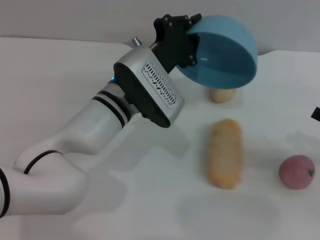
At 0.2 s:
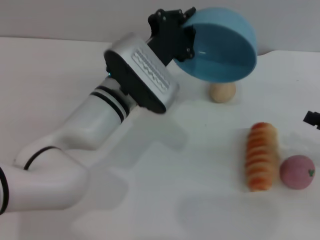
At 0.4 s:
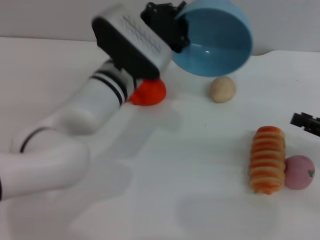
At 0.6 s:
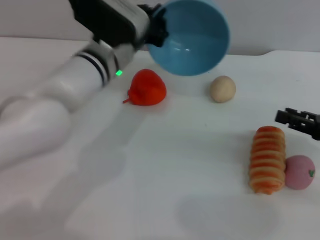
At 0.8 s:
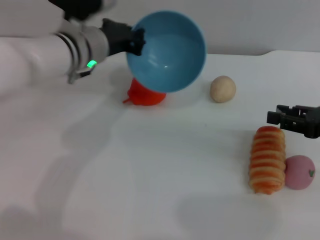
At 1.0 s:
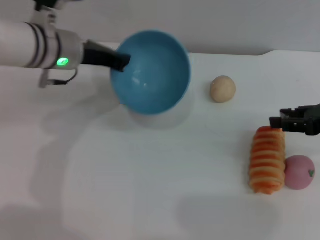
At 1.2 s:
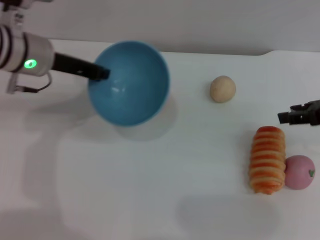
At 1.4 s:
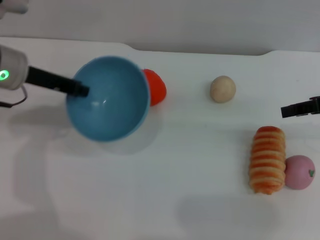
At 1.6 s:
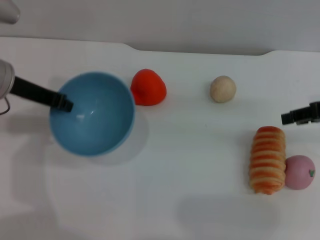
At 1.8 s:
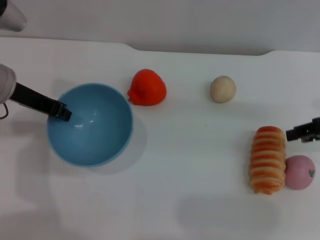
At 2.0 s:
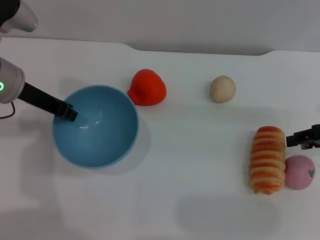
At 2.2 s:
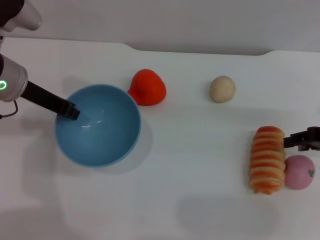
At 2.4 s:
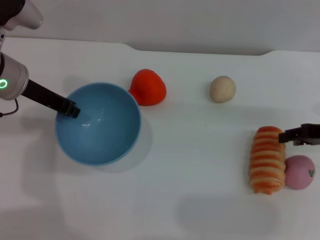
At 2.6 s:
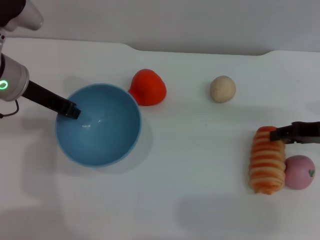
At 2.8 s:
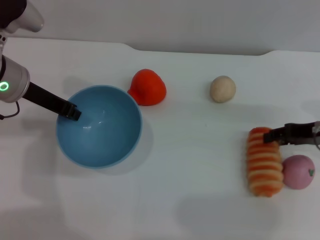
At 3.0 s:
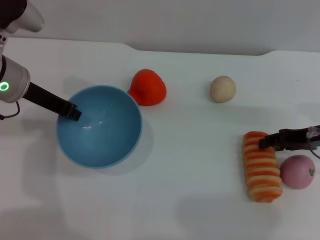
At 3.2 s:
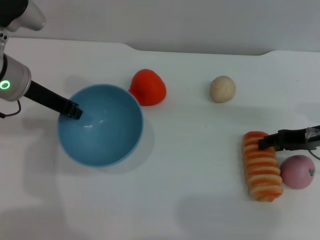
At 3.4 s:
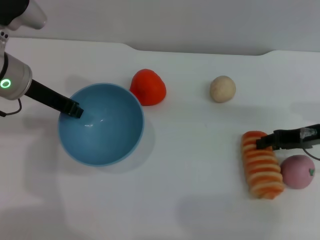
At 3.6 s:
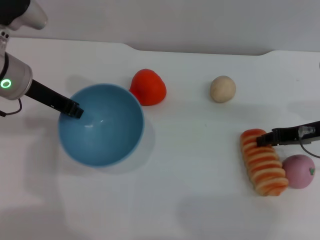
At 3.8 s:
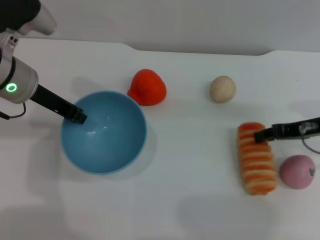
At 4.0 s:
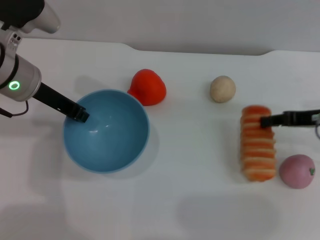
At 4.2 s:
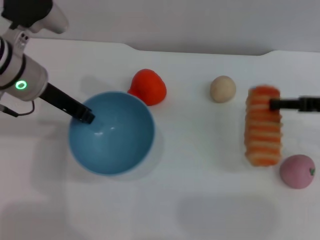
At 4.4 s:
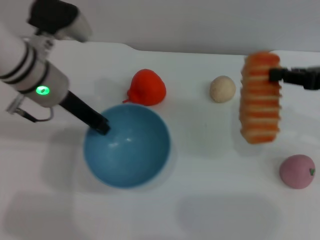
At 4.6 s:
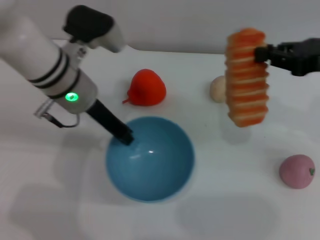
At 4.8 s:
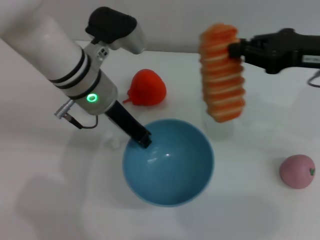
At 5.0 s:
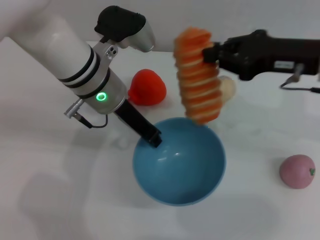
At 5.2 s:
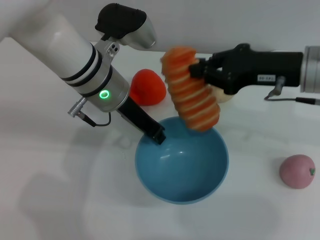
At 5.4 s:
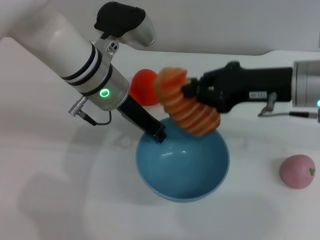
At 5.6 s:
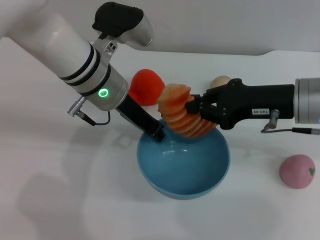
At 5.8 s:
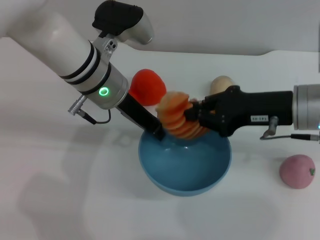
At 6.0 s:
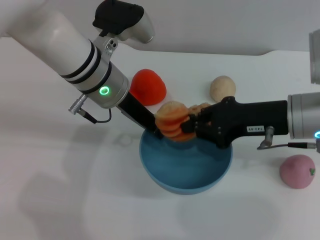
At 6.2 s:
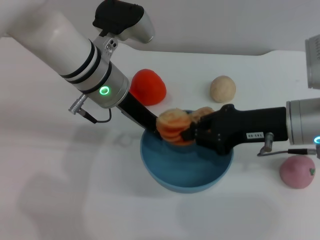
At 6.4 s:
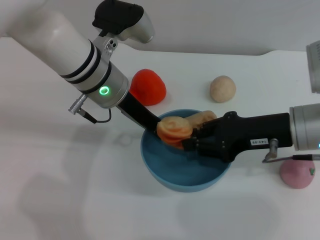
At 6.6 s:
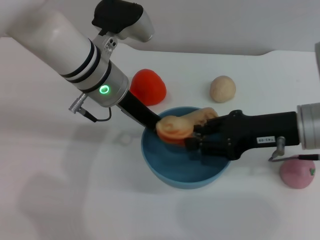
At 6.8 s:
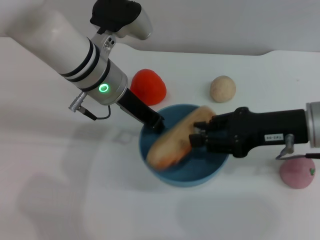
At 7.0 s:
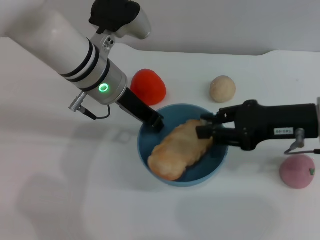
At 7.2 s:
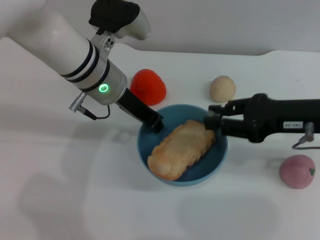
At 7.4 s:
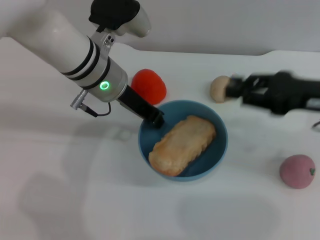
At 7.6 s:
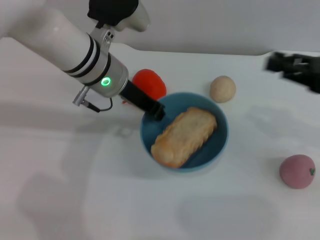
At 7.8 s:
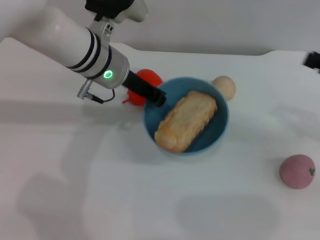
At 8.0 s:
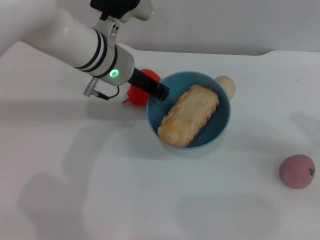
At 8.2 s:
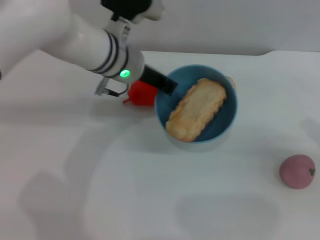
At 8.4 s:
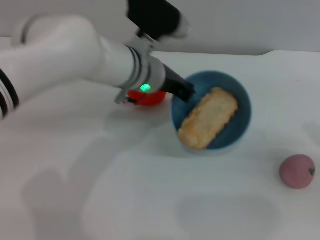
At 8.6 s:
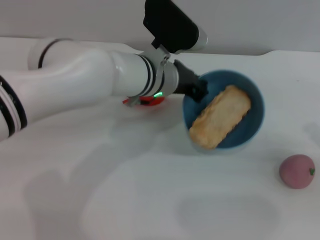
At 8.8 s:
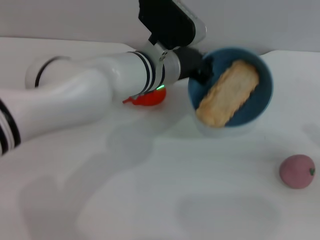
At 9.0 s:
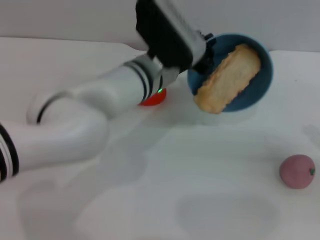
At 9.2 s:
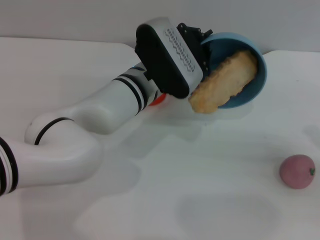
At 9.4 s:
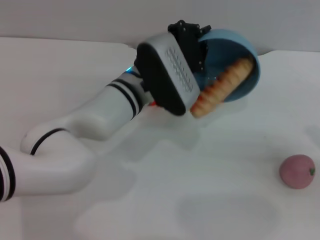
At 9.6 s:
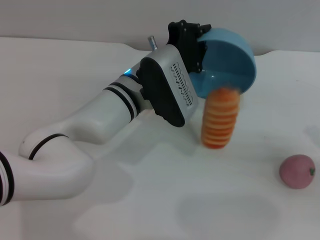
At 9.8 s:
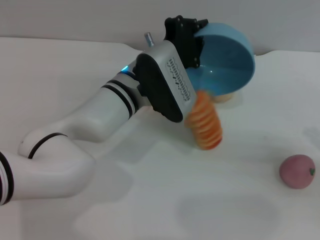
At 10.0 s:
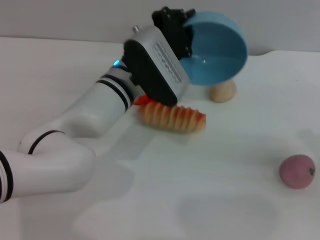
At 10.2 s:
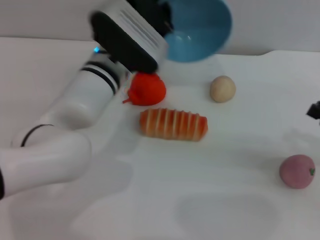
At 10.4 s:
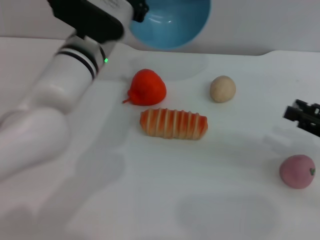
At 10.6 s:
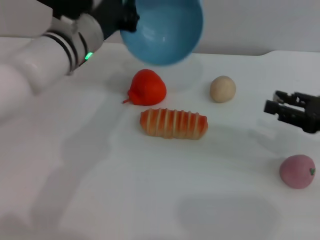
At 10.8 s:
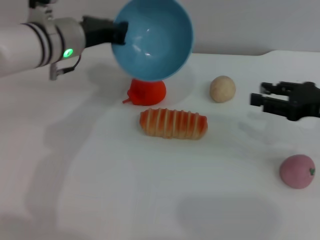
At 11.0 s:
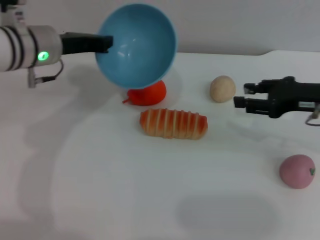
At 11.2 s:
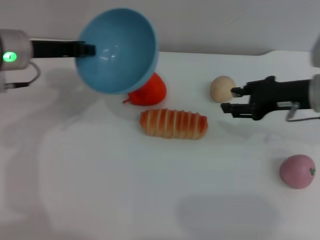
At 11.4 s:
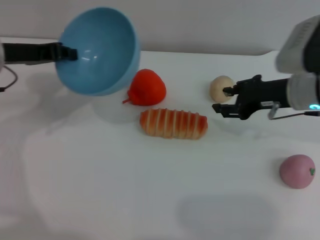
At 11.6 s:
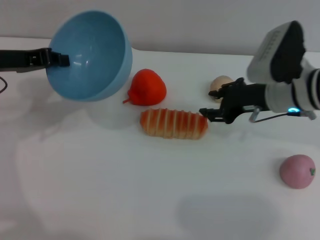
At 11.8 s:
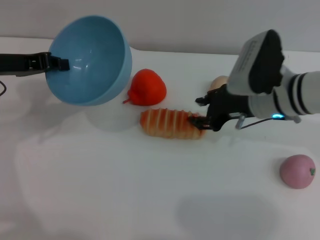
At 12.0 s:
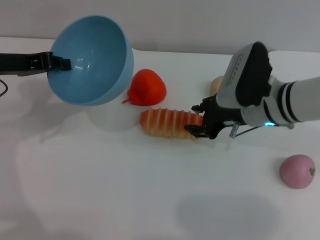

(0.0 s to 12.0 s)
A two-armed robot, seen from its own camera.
Task of the whole recording: put the bread into the blue bowl and pour it out repeatedly.
Step, 0.2 s - 4.2 s: Pick up the bread with the right gripper.
Step, 4.4 s - 7.2 s: Place the bread into the bowl.
Step, 7.4 s - 10.0 s: Pour the bread out of the bowl.
0.0 s - 1.6 s: The right gripper moves forward, upward and to the left, approximately 15 cm. The left gripper shifts roughly 20 cm to the left.
1.6 s - 3.0 s: The right gripper is displaced downward by some 10 cm.
3.0 s - 4.4 s: The right gripper heads upward, covering about 10 cm, and closes up. The left gripper moves to the right, approximately 5 cm.
4.4 s - 6.0 s: The left gripper moves to the right, about 10 cm, while the right gripper goes approximately 10 cm to the left.
6.0 s - 7.6 s: The right gripper goes some 10 cm to the right, and opens its fingers.
7.6 s - 9.0 s: The right gripper heads to the right, downward and backward, covering approximately 15 cm; the left gripper travels to the right by some 5 cm.
9.0 s - 10.4 s: The right gripper changes place by roughly 5 cm, while the left gripper shifts approximately 10 cm to the left.
10.4 s - 12.0 s: The right gripper shifts approximately 20 cm to the left and forward. Meanwhile the left gripper travels to the left by approximately 15 cm.

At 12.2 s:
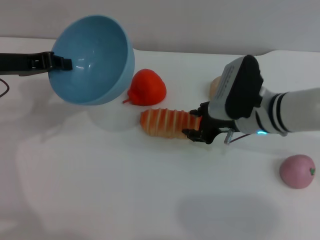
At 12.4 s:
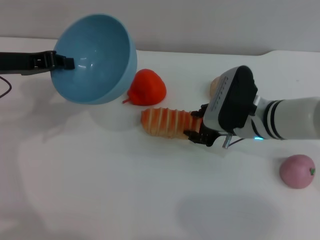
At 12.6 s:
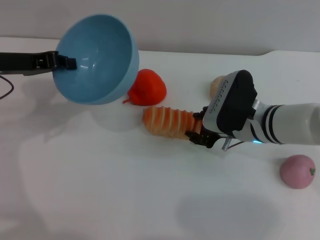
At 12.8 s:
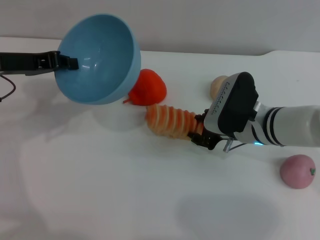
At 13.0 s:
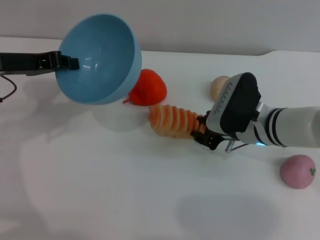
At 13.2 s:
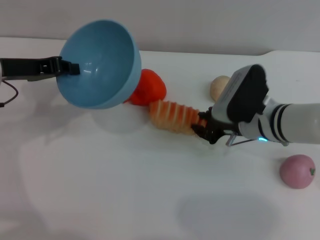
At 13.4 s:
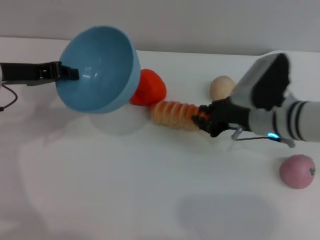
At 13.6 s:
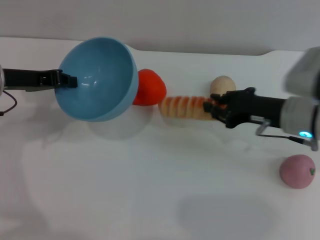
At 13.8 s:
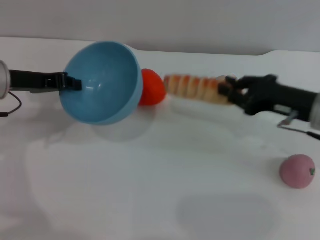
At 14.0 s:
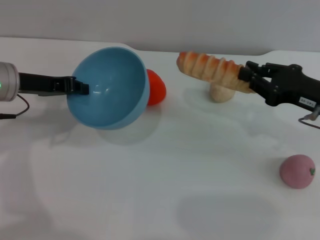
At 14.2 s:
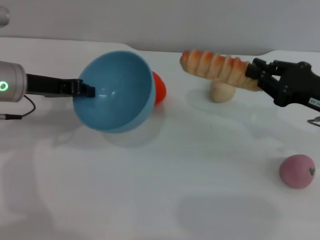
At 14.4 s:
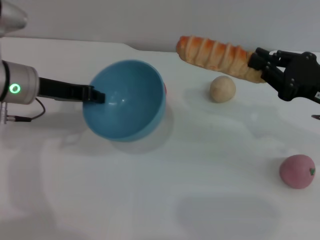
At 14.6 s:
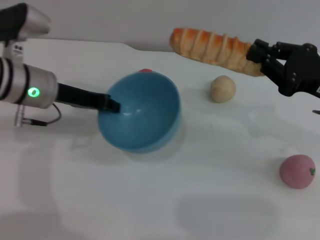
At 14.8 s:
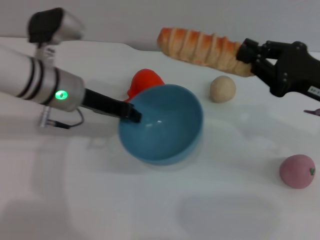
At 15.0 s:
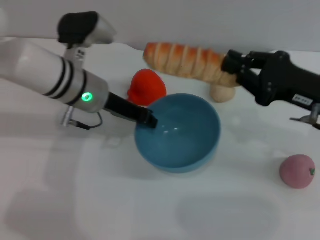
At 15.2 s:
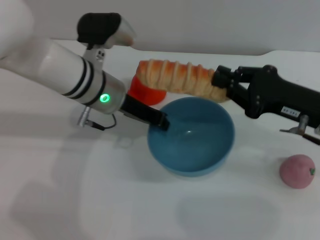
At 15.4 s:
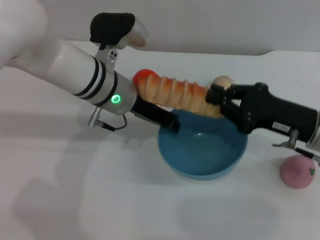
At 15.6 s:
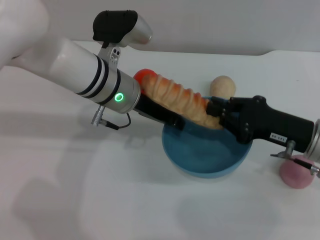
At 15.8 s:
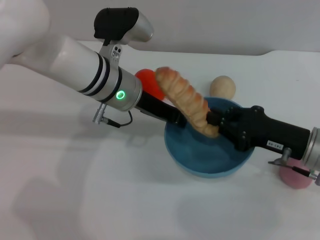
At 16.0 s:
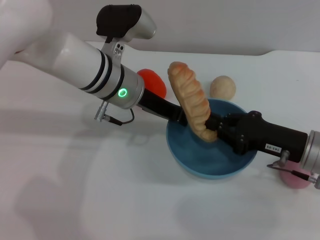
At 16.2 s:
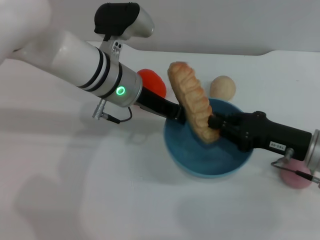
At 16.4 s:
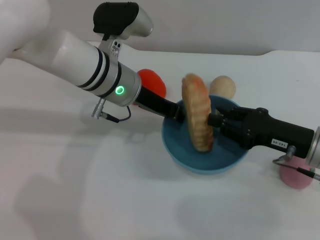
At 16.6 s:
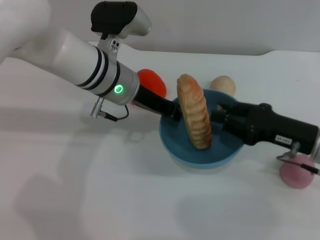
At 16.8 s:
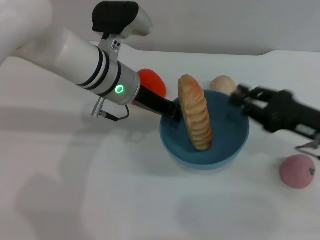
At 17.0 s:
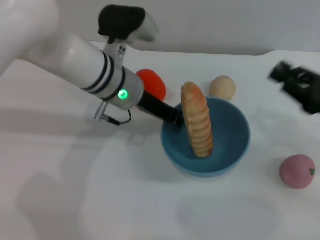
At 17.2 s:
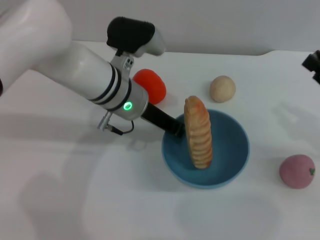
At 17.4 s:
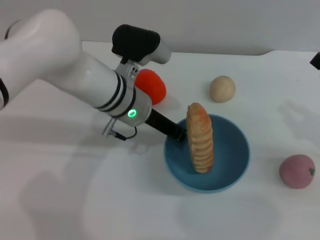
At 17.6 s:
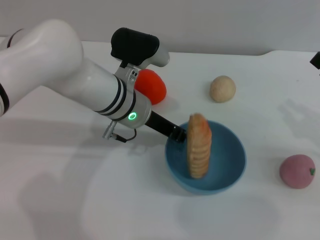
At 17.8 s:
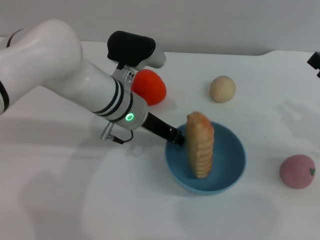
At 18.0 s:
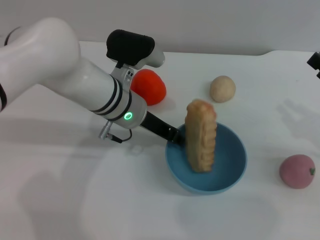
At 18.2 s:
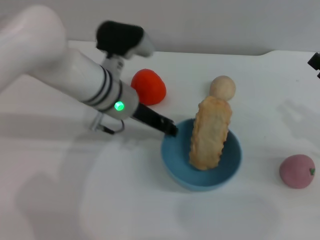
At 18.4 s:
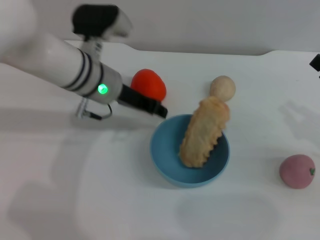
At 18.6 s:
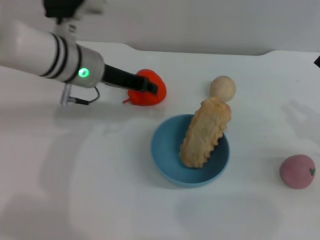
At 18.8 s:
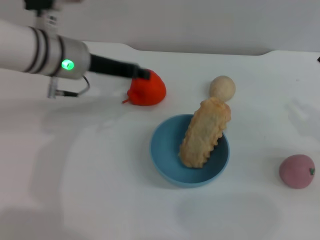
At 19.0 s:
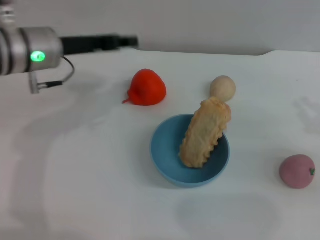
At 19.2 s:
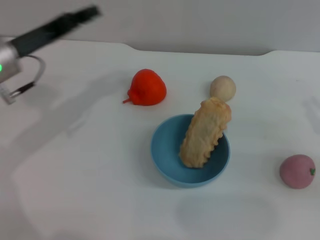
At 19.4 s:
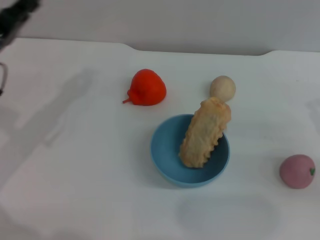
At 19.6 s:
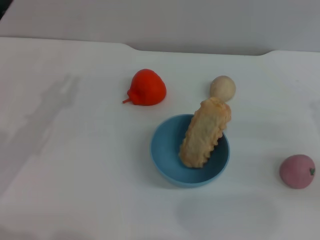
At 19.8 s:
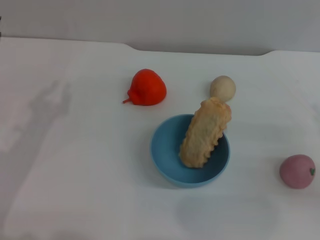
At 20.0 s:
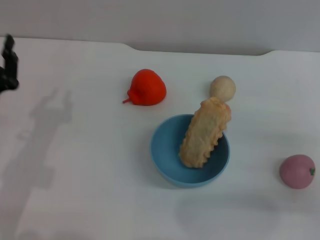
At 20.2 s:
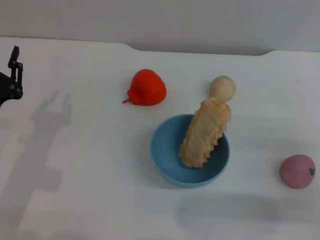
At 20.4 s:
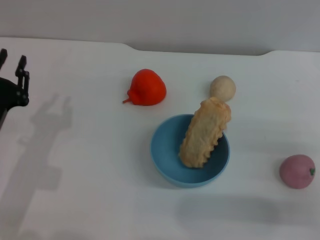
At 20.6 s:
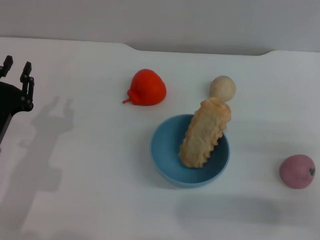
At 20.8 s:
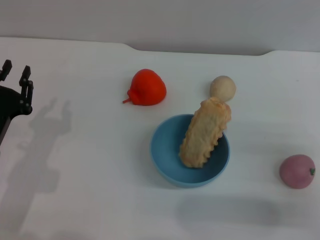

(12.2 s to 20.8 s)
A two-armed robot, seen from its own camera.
Task of the whole recording: put the bread into the blue bowl and pour it out repeatedly.
Step, 14.0 s - 16.8 s: Place the bread into the bowl.
Step, 17.0 s - 18.4 s: Place the bowl on the table.
12.2 s - 13.6 s: The right gripper shifts about 5 cm to the right, and closes its fingers.
13.6 s - 15.0 s: The left gripper moves to the right, roughly 15 cm. Meanwhile the right gripper moves about 5 cm, and closes its fingers.
15.0 s - 16.6 s: The right gripper goes about 5 cm downward, and opens.
16.6 s - 18.0 s: The right gripper shifts some 10 cm to the right.
18.0 s - 19.4 s: The left gripper goes approximately 20 cm to the left.
19.4 s - 20.8 s: The left gripper moves downward and backward, about 10 cm. The right gripper moves backward and downward, some 5 cm.
